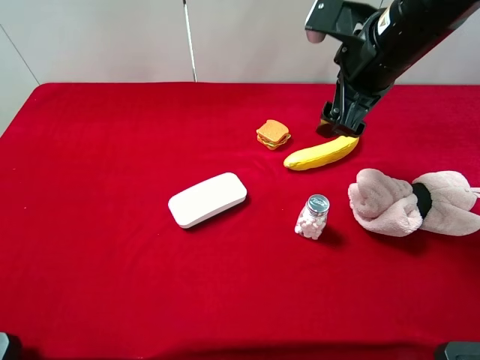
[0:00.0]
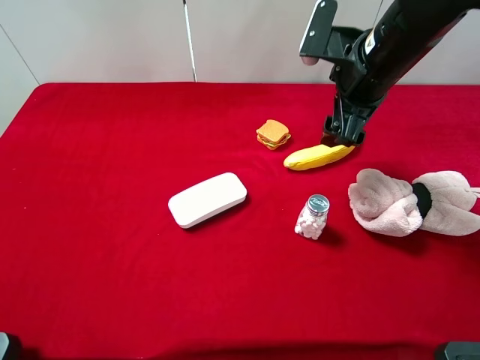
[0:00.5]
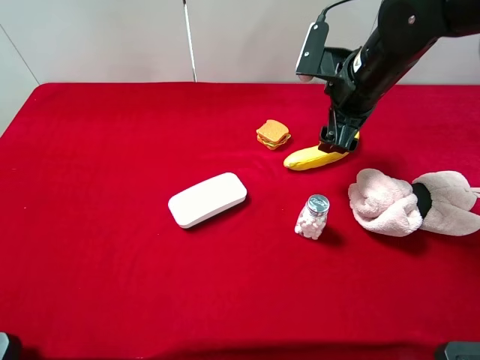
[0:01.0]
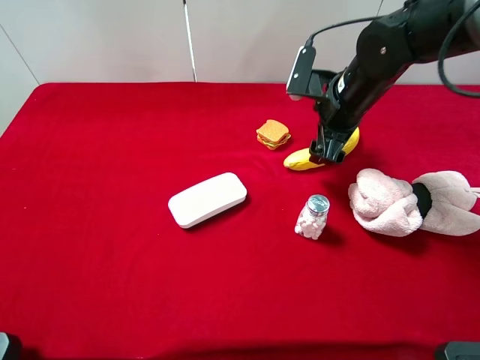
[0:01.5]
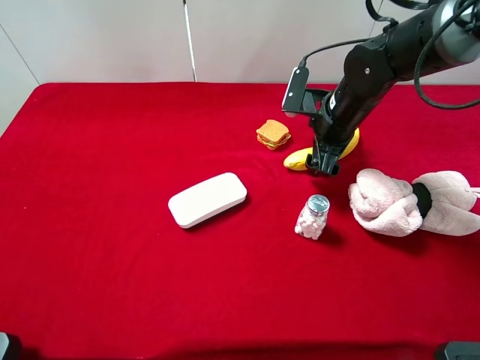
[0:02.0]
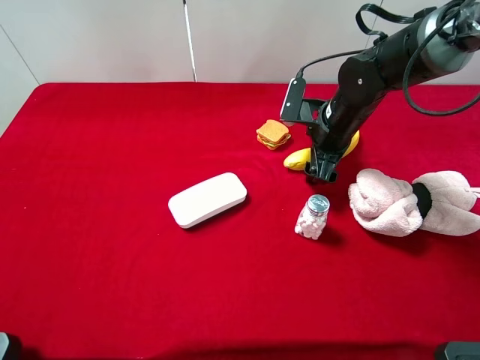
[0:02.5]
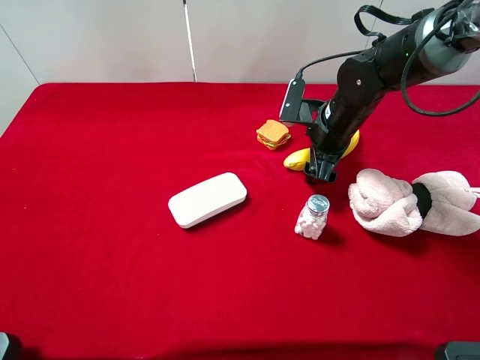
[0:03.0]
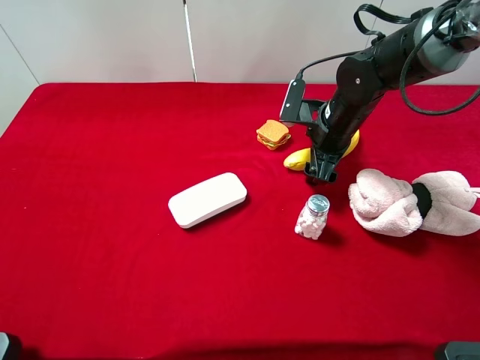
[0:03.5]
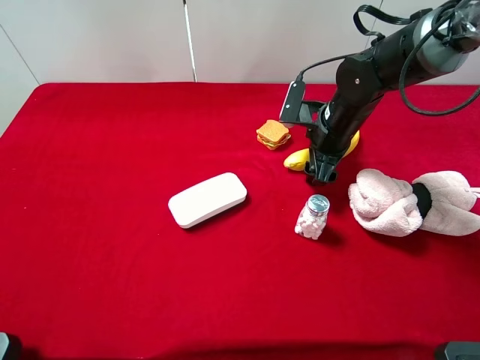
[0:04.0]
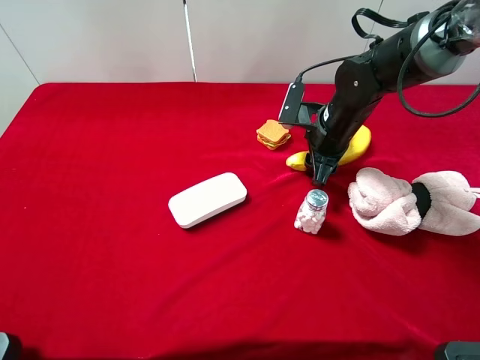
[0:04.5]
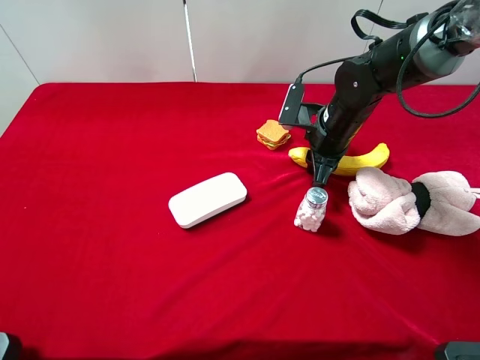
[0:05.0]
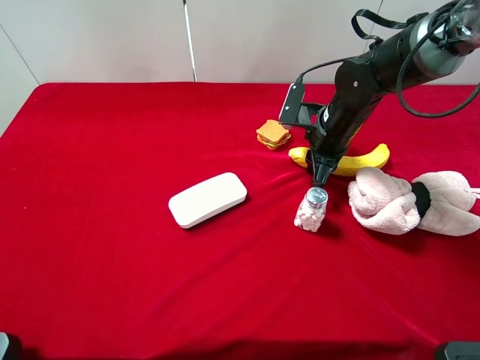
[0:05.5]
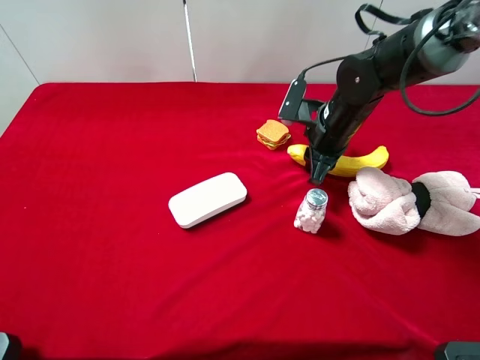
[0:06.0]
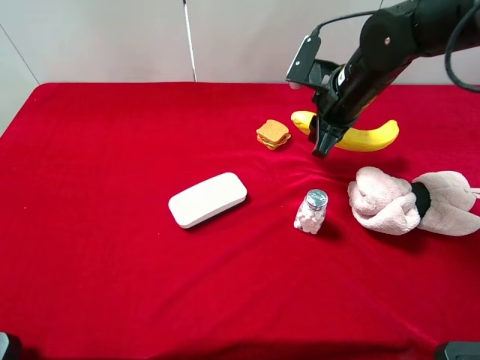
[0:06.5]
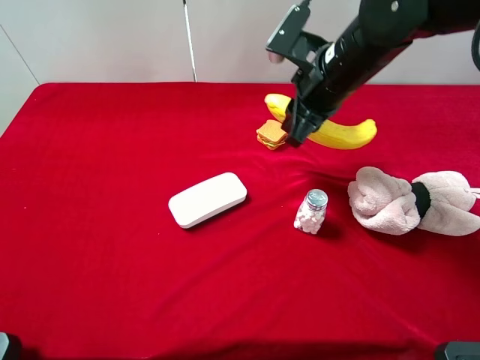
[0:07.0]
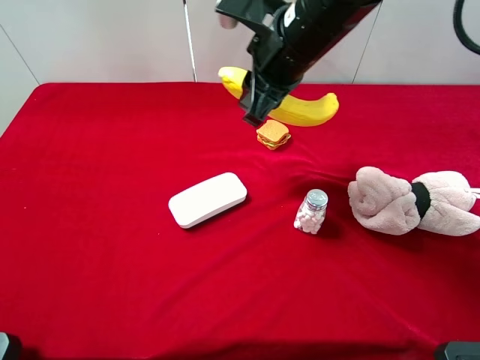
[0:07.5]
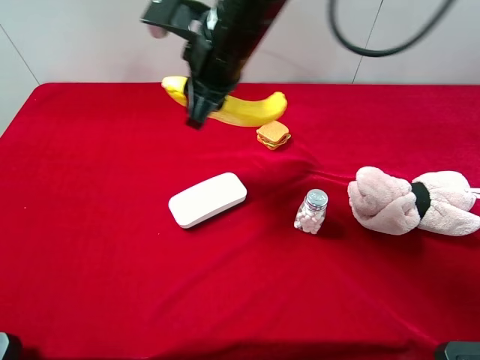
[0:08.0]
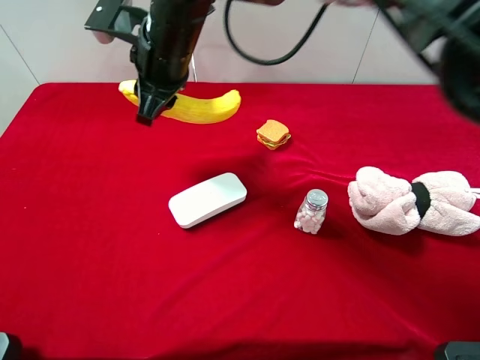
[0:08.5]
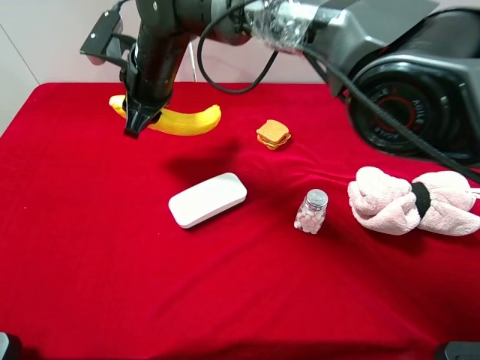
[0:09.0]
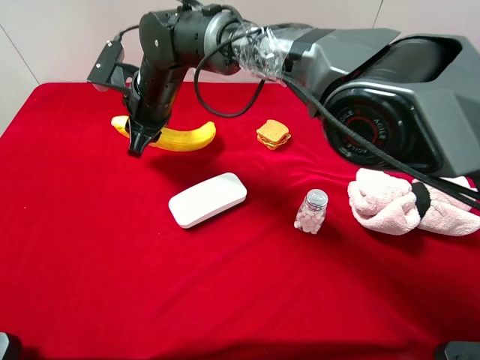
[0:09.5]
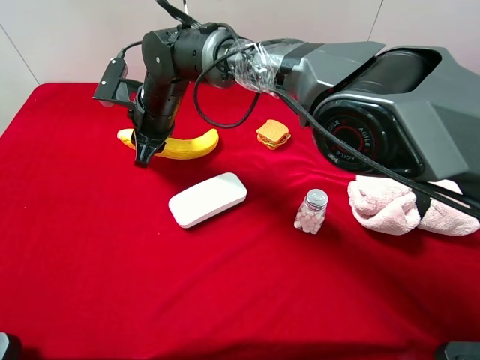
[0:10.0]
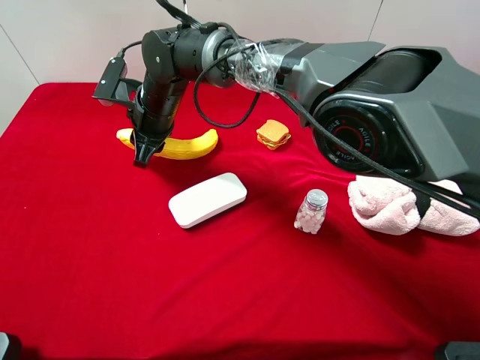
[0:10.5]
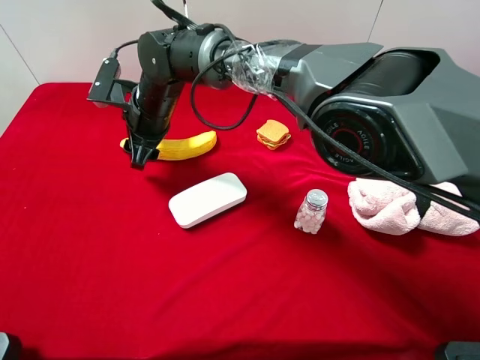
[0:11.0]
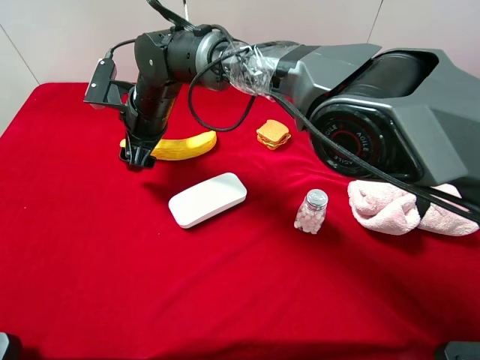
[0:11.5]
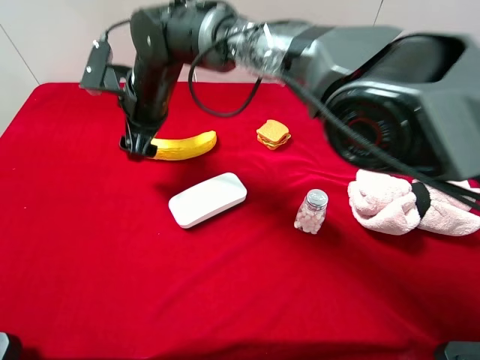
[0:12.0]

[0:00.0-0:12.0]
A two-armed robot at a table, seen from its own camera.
Task of the whole recording: the gripper move the object.
Step, 0:00.0 to 0:04.5: Grasp the banana with the right gripper.
0:00.0 to 0:02.0: The right gripper shifts about 15 cm downward.
0:02.0 to 0:04.0: The grippers stay close to where they were, moving slightly.
0:04.0 to 0:06.0: The right gripper closes its fingers.
0:06.0 to 0:08.0: The right gripper goes about 20 cm to the left and upward.
0:08.0 to 0:10.0: The right gripper travels downward and to the left by some 15 cm.
0:10.0 to 0:12.0: The right gripper opens its fingers.

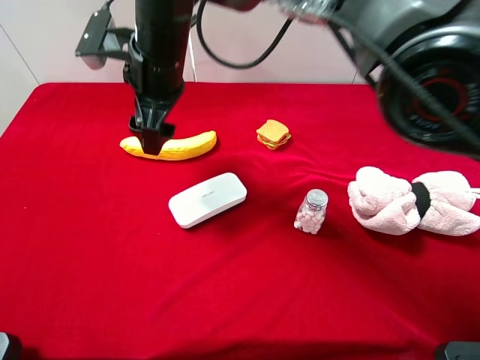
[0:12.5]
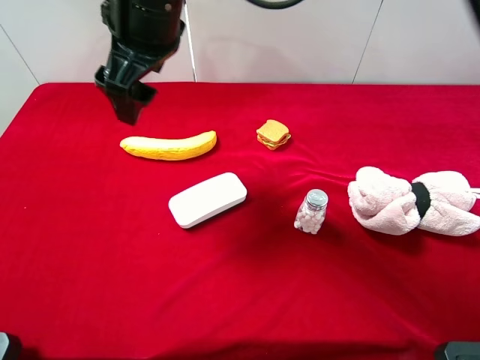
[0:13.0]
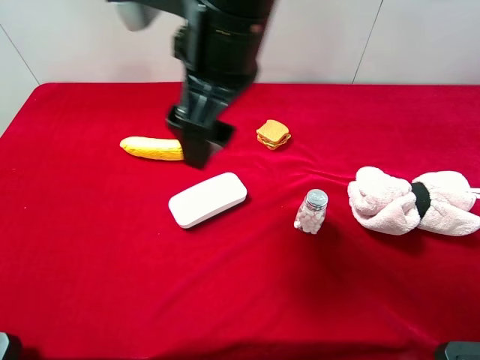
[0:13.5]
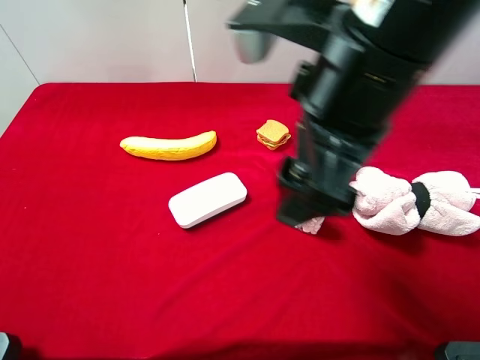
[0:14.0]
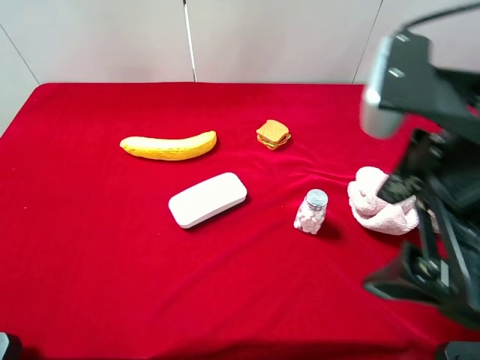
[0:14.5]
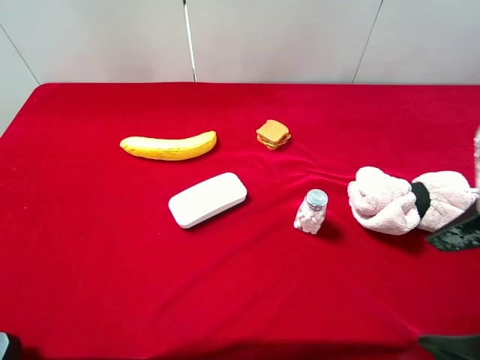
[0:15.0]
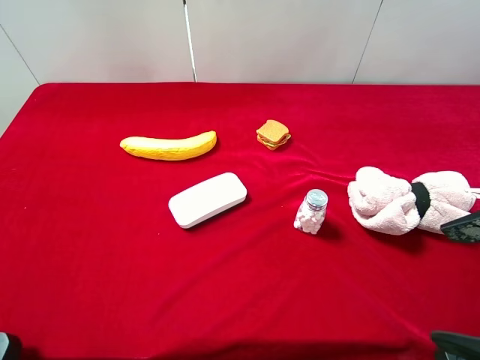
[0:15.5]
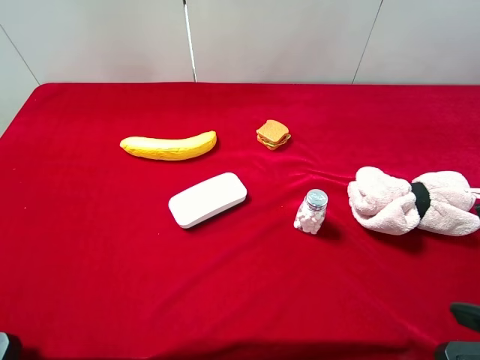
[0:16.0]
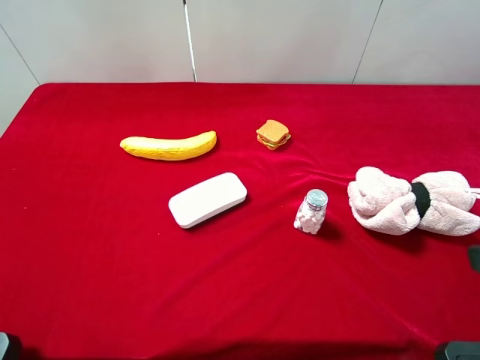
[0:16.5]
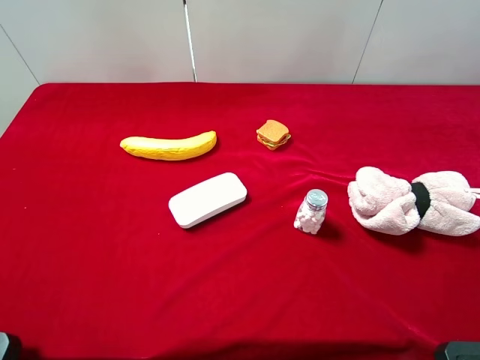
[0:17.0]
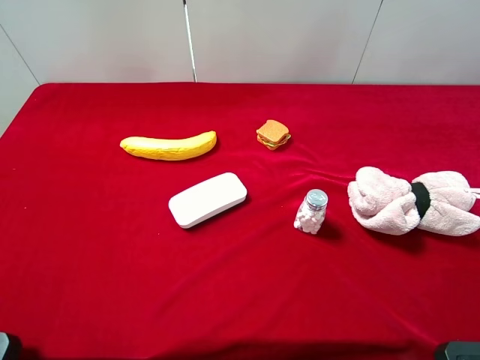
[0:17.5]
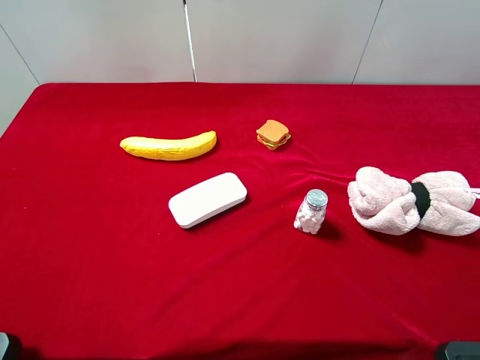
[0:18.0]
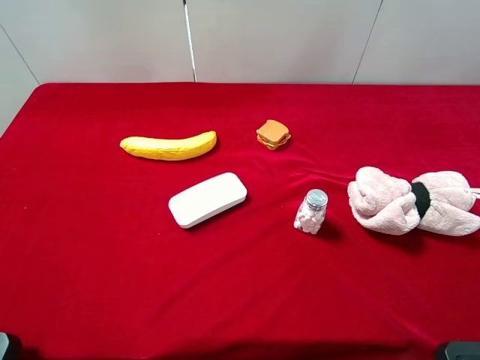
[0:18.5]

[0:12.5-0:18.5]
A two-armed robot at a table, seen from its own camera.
Task of the whole recording: the gripper move the object.
0:12.5 to 0:14.5: The right gripper shifts about 35 cm to the right and backward.
0:14.5 to 0:16.5: The right gripper travels to the right and backward by roughly 15 cm.

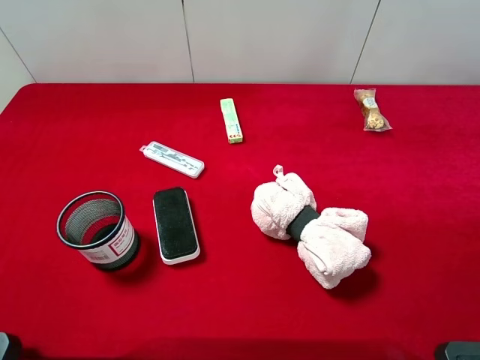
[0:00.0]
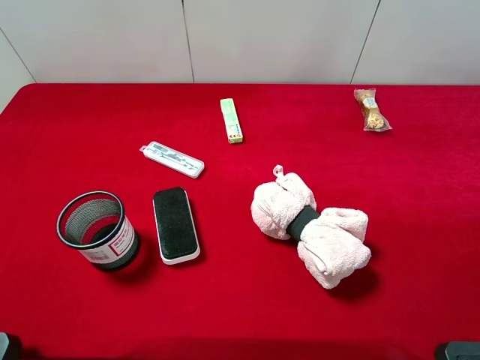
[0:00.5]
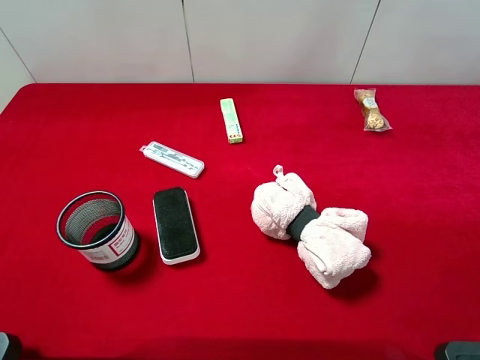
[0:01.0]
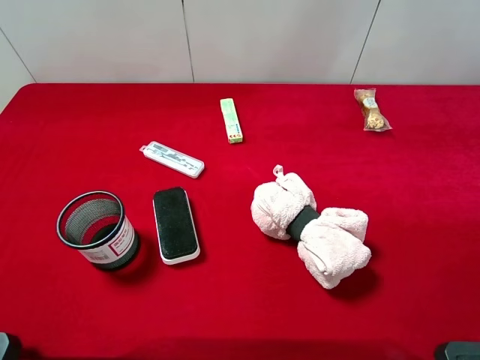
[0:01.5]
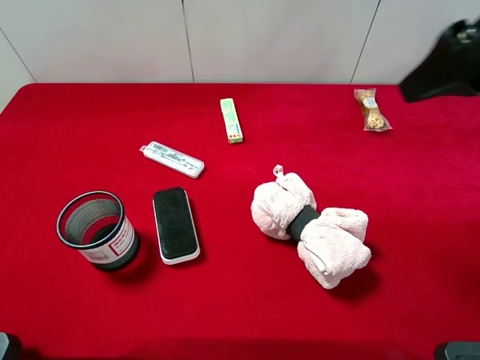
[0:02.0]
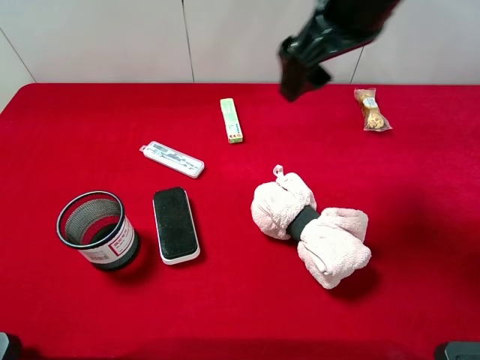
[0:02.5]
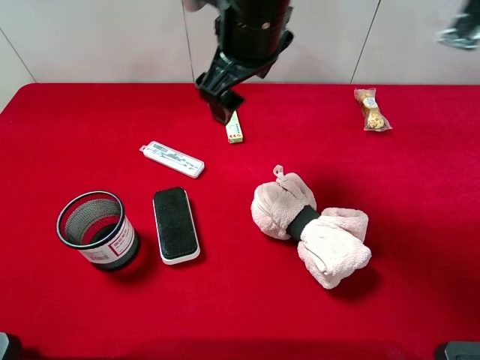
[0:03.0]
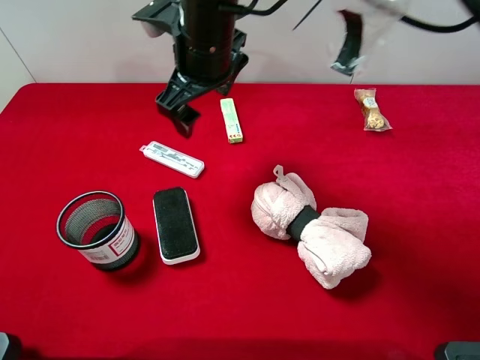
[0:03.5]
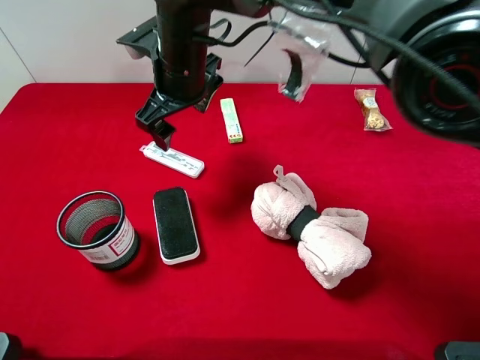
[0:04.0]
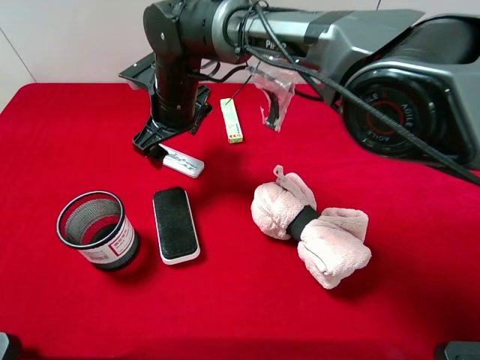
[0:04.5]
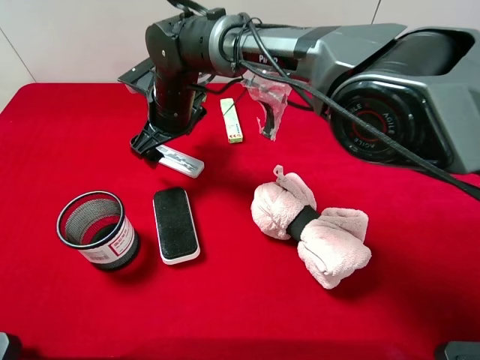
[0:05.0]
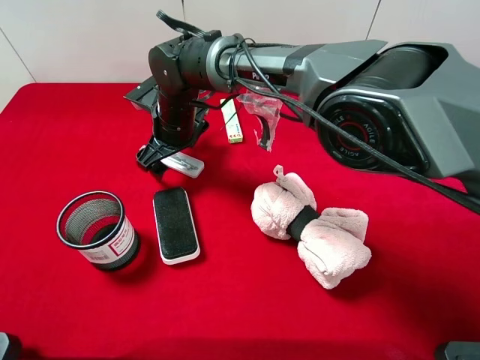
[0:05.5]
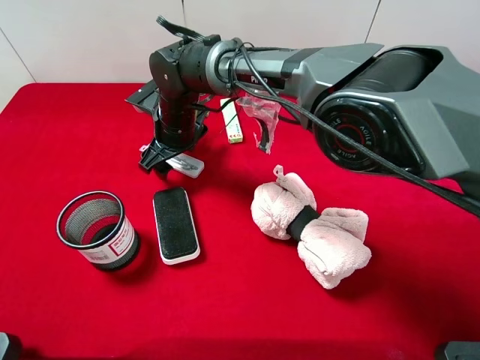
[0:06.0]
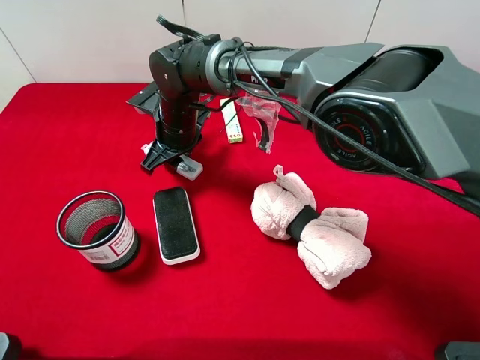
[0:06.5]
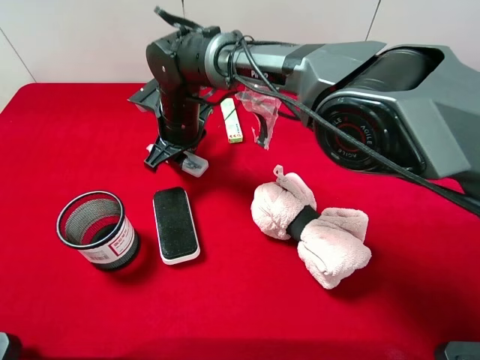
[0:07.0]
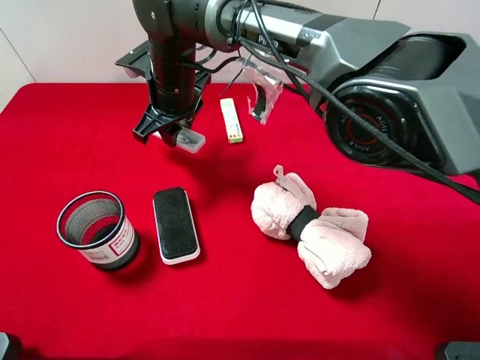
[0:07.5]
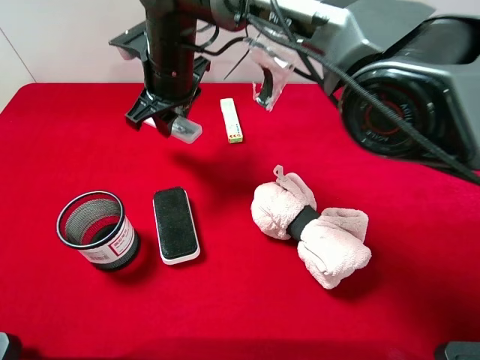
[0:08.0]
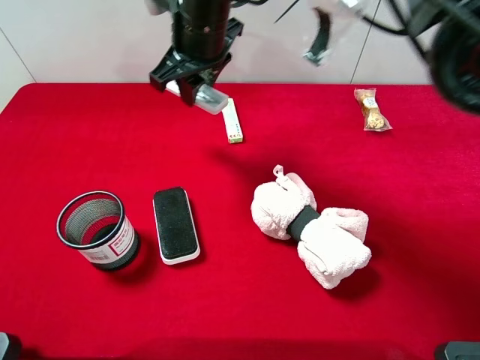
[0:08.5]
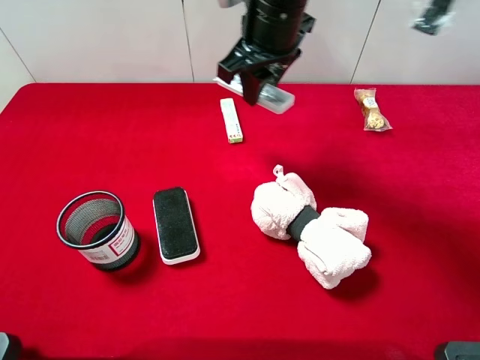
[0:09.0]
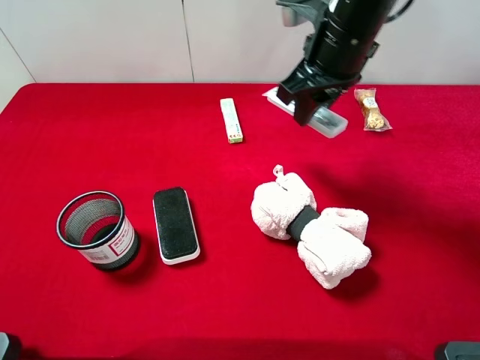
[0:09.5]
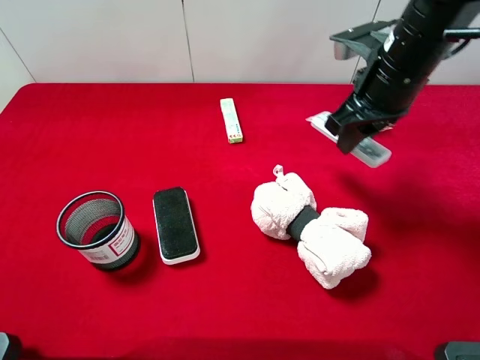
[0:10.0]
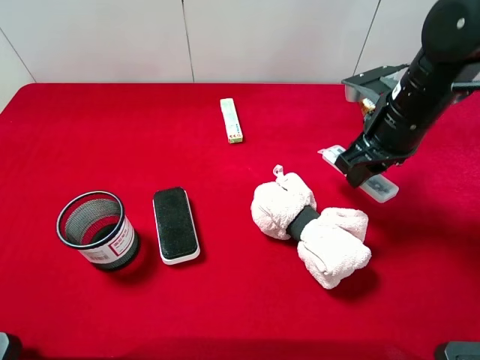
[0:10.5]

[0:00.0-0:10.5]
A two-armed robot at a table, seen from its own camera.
Task of the whole recording: the gripper move the object.
Step, 0:00.0 to 0:06.5: Grasp the compasses with the right gripper.
0:02.0 to 0:04.0: The right gripper travels to the left, downward and forward by approximately 35 cm.
0:04.0 to 0:06.5: The right gripper moves downward, approximately 10 cm, and closes its fingers.
0:06.5 to 0:08.5: The right gripper travels upward by some 15 cm.
0:08.5 to 0:10.5: The right gripper shifts roughly 25 cm to the right.
